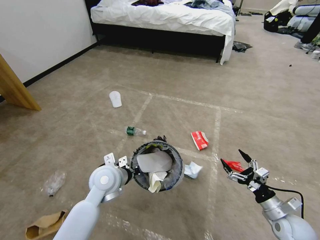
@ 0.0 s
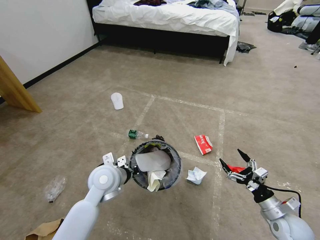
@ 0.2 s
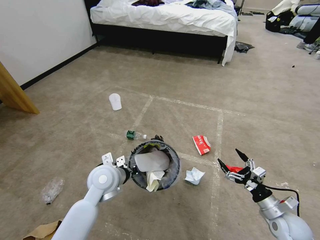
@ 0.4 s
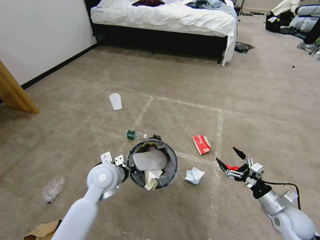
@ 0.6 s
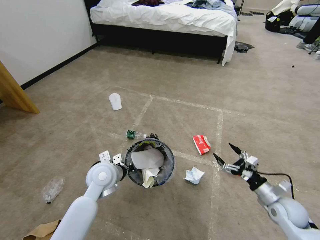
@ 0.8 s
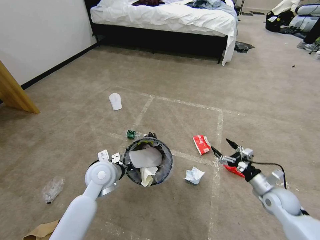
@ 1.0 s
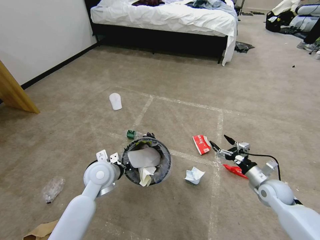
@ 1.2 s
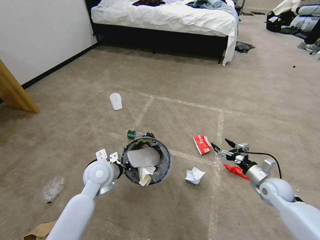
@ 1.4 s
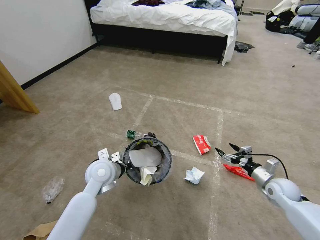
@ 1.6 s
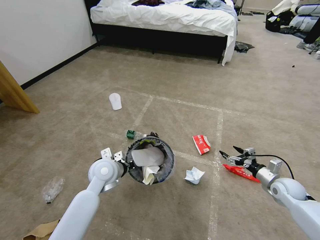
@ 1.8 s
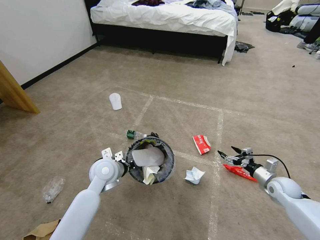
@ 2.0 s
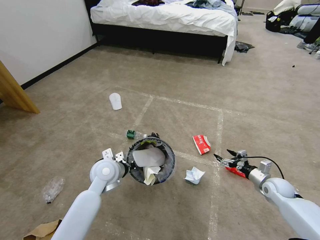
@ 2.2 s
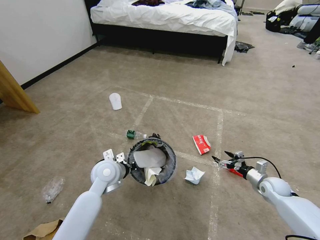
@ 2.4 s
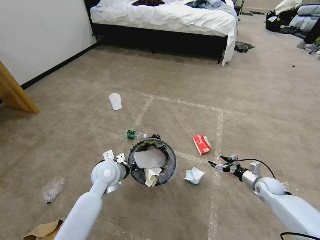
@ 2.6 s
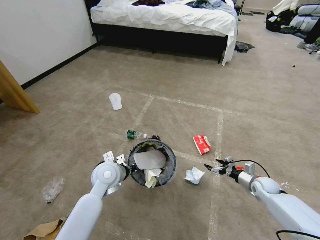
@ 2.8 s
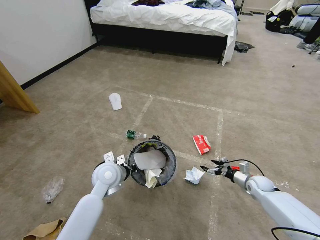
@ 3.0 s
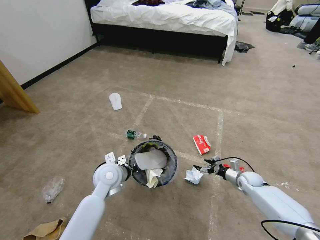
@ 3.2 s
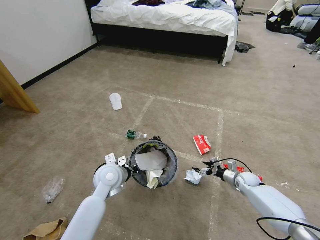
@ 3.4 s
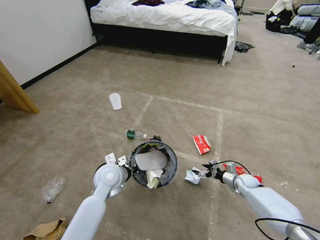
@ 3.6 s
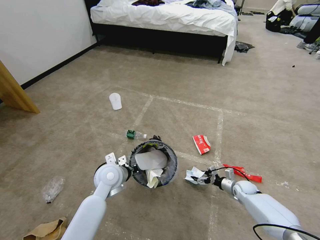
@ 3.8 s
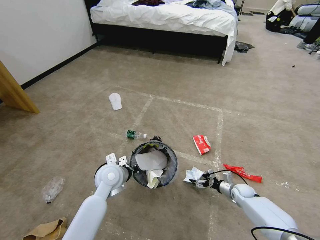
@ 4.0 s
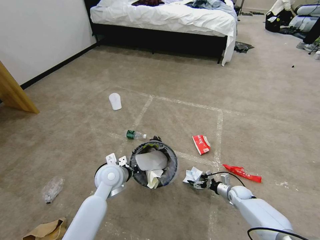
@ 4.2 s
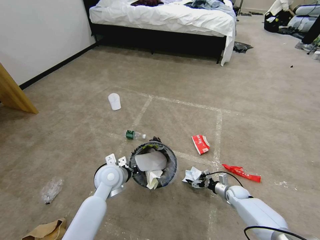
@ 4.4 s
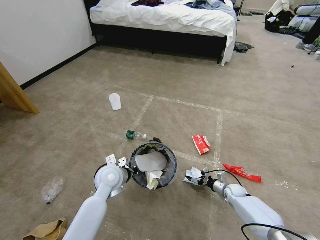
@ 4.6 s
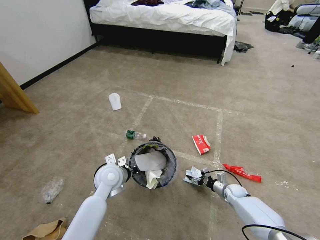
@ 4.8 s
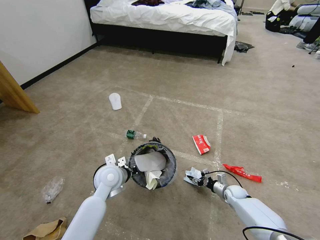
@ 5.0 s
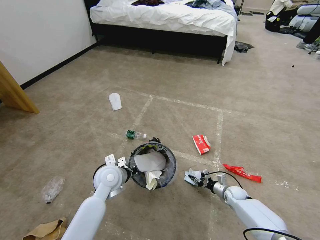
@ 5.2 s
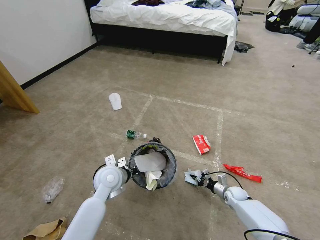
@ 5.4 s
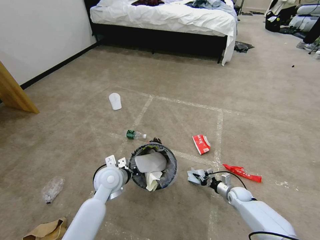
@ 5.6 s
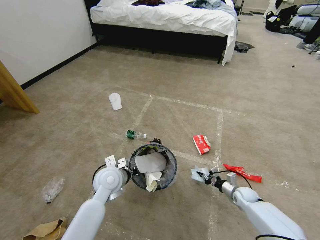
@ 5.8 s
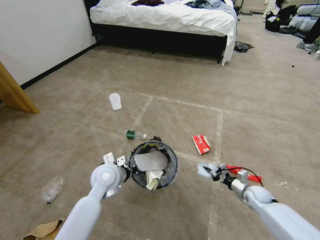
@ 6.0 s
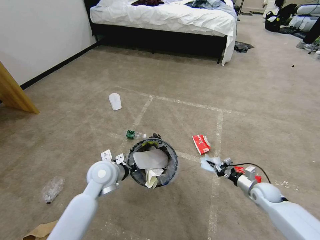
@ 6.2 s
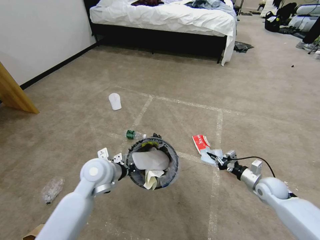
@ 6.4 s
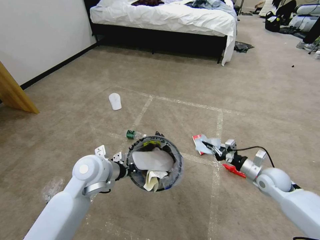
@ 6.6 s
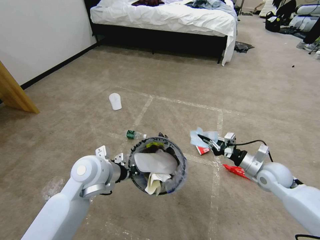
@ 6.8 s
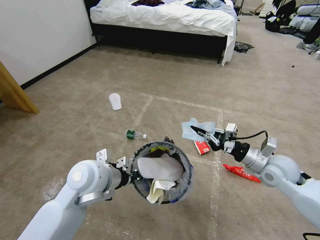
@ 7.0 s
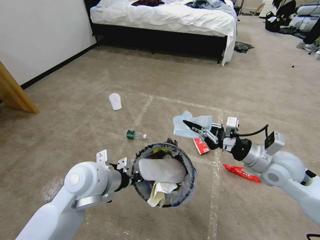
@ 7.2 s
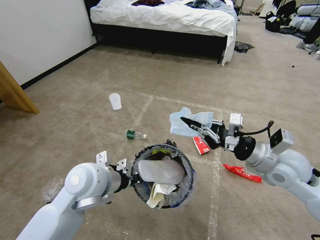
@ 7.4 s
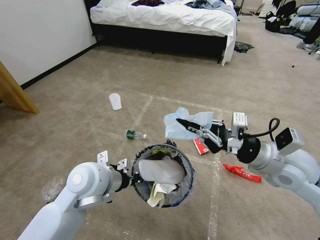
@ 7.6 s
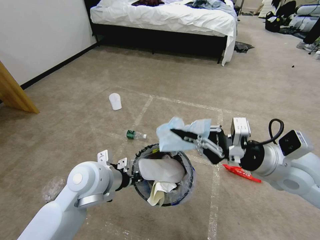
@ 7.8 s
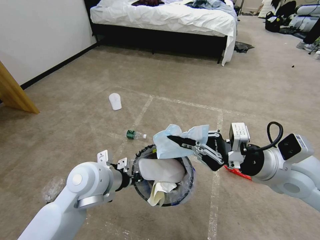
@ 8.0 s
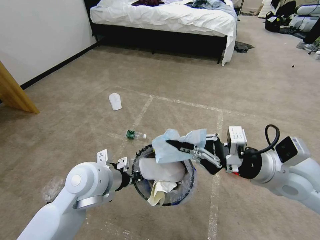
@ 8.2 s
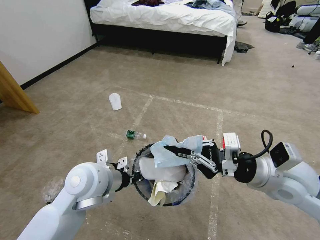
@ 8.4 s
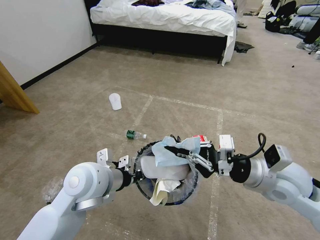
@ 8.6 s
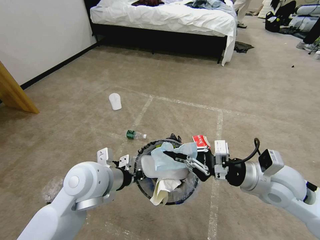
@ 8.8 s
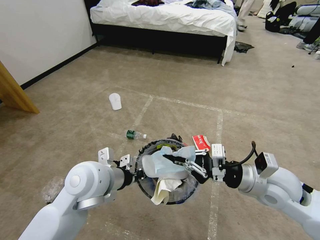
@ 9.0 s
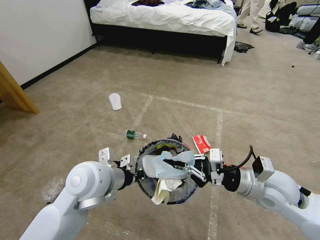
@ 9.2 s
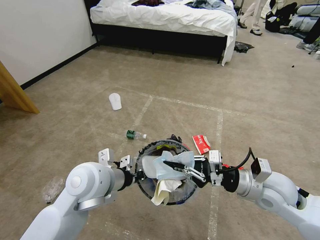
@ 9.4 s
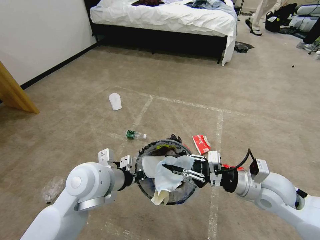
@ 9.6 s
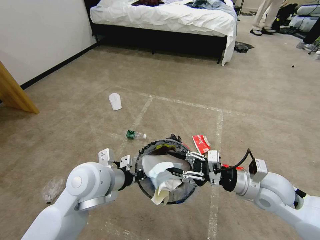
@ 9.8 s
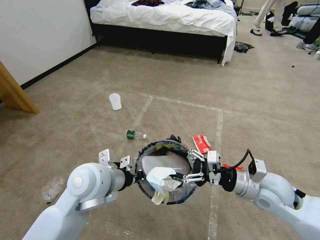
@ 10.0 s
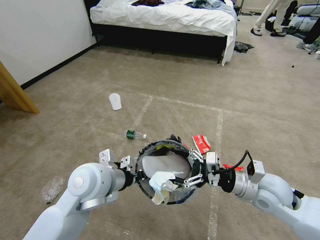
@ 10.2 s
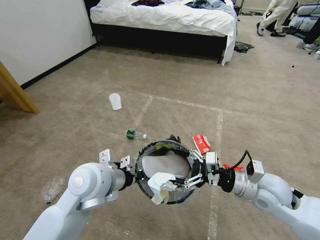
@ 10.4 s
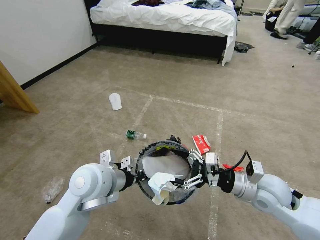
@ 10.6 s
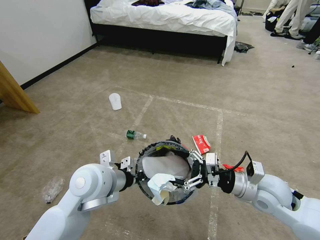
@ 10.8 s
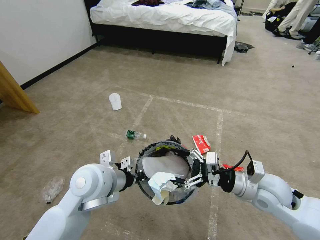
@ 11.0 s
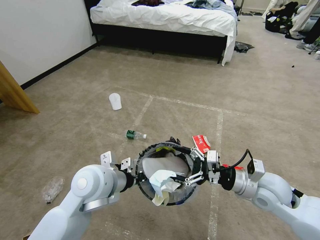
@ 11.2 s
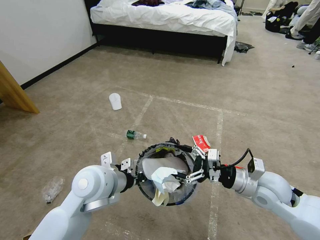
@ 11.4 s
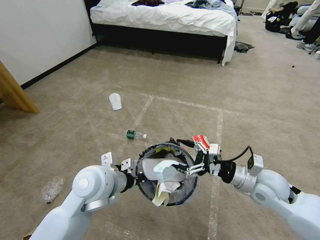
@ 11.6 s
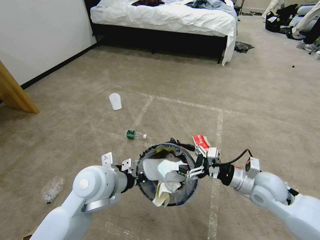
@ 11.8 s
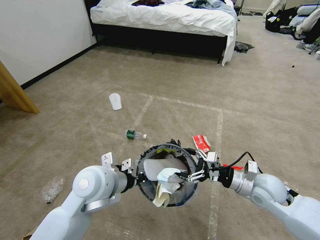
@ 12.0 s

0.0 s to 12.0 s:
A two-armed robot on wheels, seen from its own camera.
Task of the whole recording: Pick up the trash bin and place the garbage on the floor into it.
0.0 to 1.6 s: The right gripper heads forward, covering some 10 cm.
1.6 to 3.0 s: The right gripper heads downward and forward, covering roughly 10 cm.
3.0 to 4.4 s: The right gripper moves downward and to the left, some 10 cm.
4.4 to 6.0 s: The right gripper travels upward by some 5 cm, and closes up.
6.0 to 7.6 s: The right gripper shifts some 35 cm upward. The left gripper heads upward and backward, covering some 10 cm.
7.6 to 9.0 s: The right gripper heads downward, covering approximately 5 cm.
9.0 to 10.4 s: The right gripper opens.
10.4 to 12.0 s: The right gripper ends up approximately 5 cm from where it was.

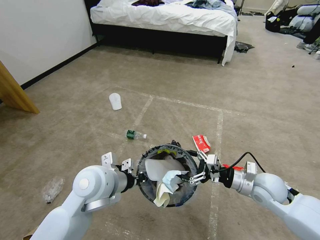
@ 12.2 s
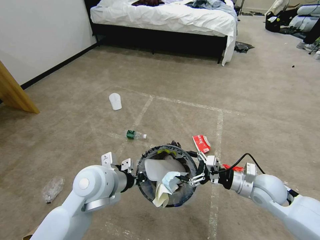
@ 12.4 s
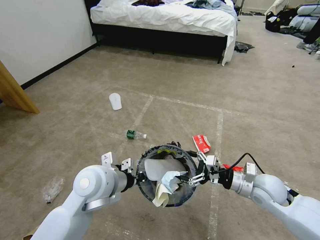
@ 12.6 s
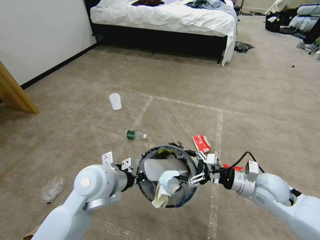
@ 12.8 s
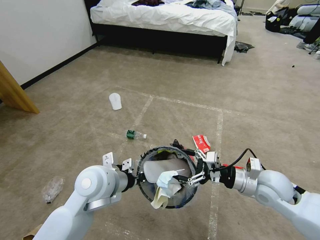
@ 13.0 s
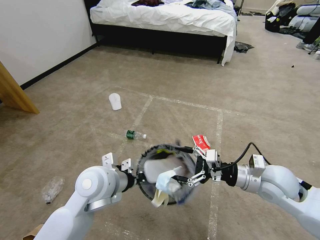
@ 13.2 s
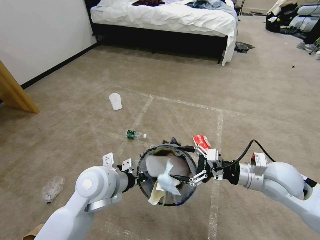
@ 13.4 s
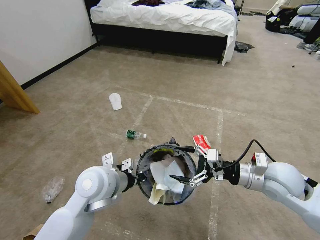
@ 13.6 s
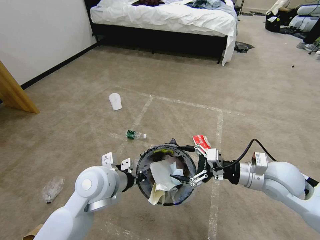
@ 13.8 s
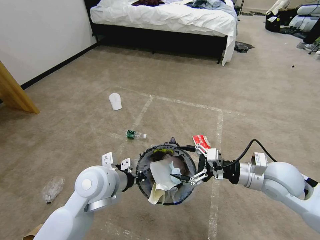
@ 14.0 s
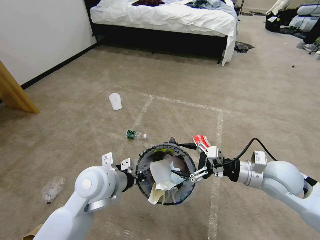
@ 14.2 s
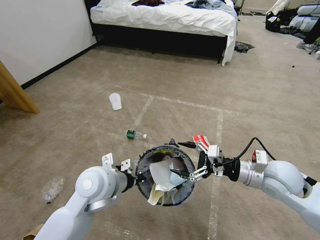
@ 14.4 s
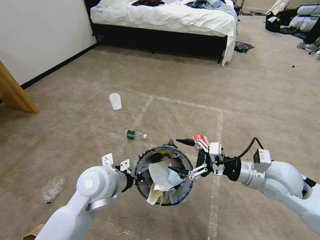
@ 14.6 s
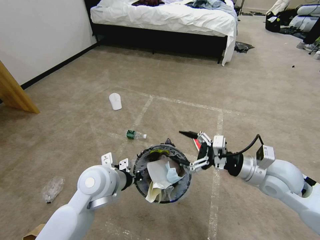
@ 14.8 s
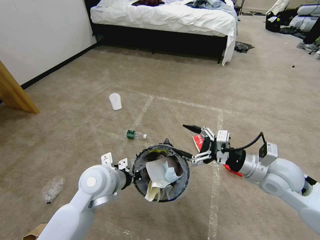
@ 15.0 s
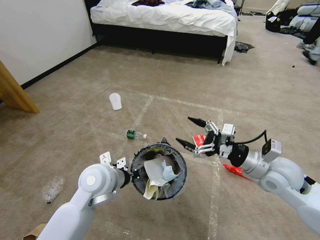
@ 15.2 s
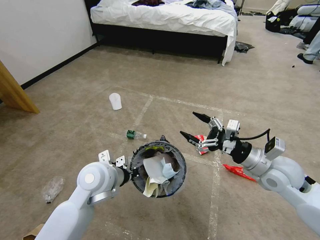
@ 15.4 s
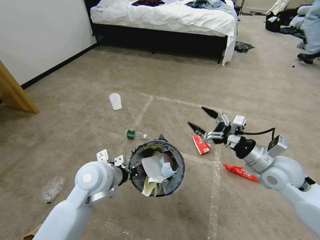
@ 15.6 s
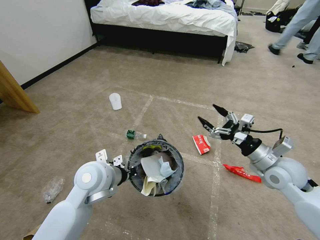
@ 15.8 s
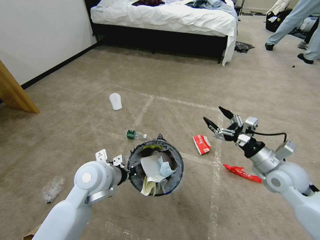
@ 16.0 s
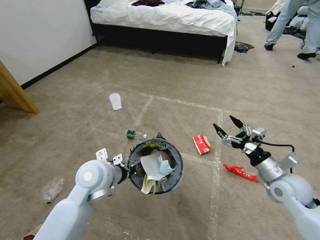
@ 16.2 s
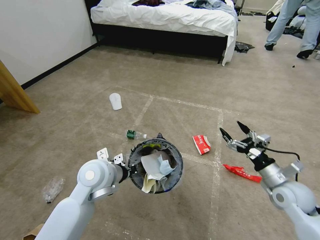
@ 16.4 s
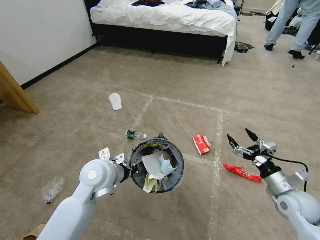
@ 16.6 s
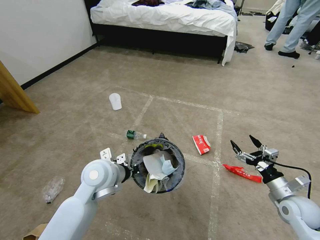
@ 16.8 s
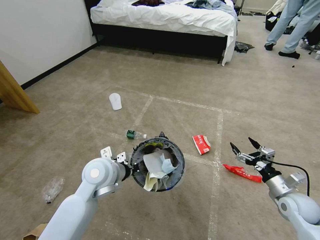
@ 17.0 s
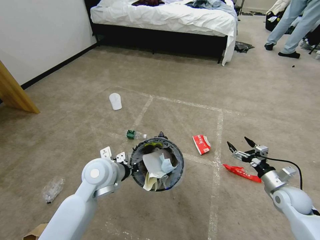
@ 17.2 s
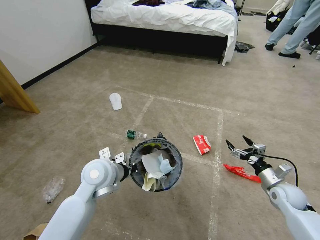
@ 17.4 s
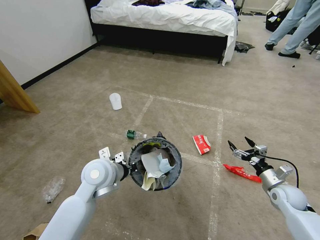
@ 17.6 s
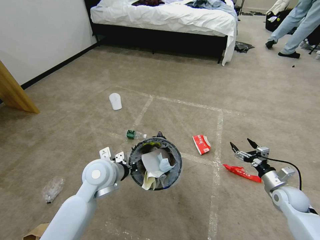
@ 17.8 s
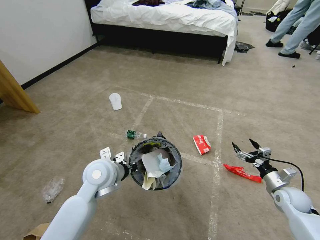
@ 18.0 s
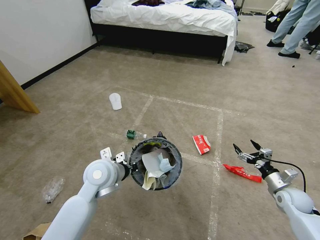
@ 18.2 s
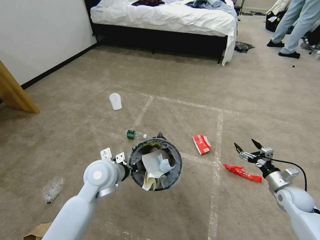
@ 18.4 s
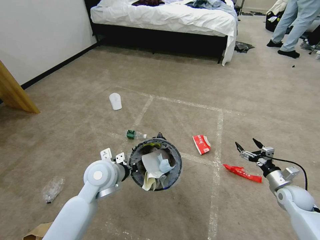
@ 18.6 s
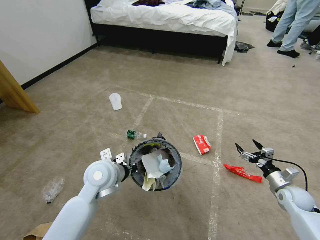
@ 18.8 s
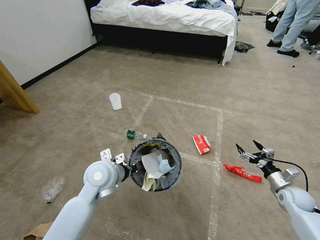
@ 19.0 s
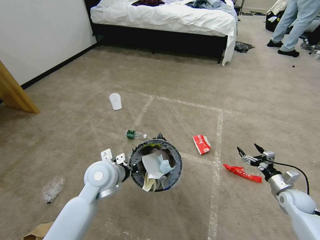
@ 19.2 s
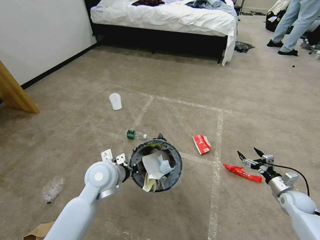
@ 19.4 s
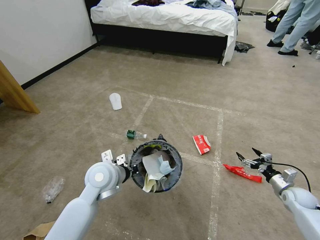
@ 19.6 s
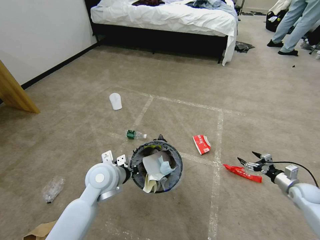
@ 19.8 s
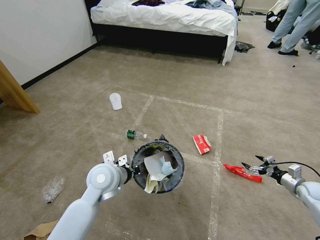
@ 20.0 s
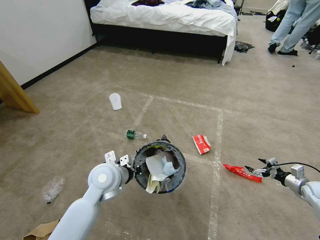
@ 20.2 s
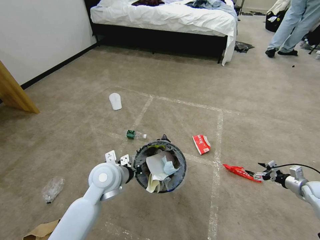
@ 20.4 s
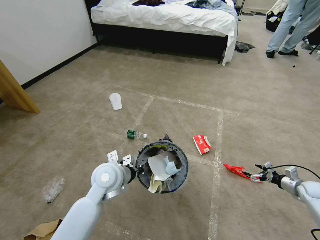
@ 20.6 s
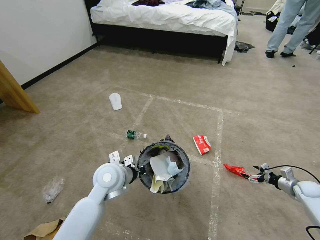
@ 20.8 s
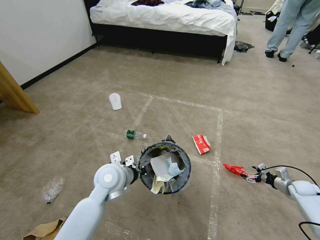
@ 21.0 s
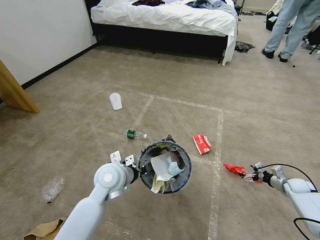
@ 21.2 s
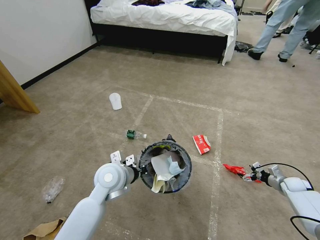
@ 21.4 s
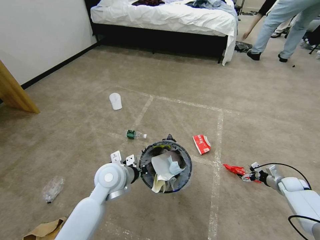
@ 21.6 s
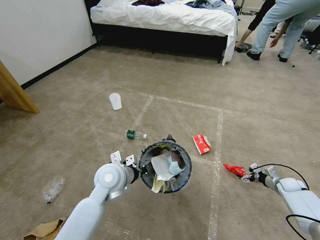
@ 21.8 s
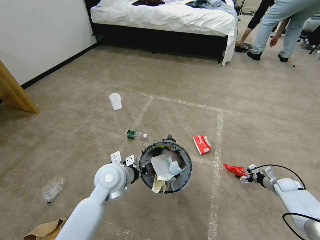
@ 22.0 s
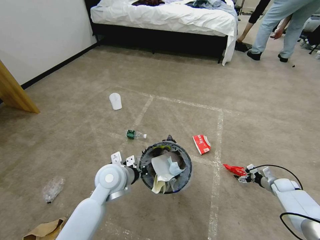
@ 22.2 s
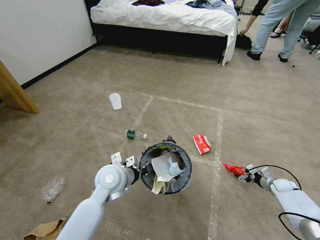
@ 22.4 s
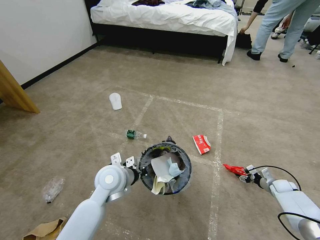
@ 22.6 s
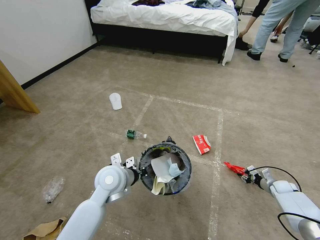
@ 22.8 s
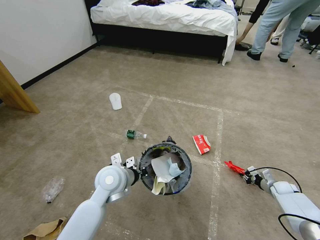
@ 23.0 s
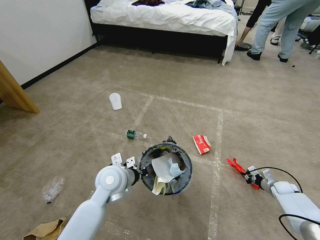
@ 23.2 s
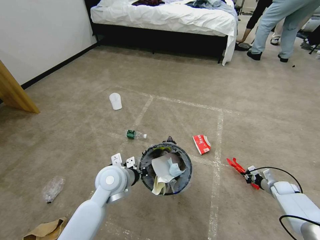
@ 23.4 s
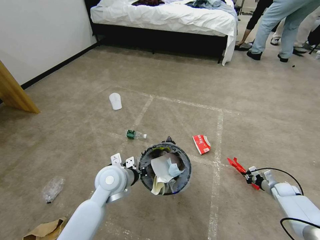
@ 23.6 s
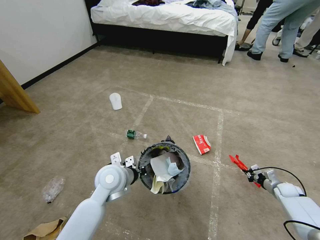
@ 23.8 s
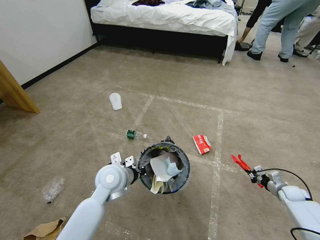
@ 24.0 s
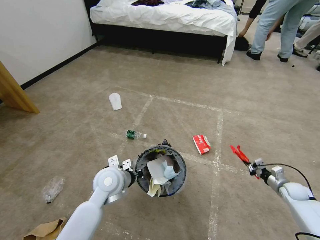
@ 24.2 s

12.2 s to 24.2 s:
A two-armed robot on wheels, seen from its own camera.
Task of the whole recording: Pick up the trash bin and place the garbage on the floor into it.
12.2 to 13.8 s: The right gripper heads upward, covering roughly 10 cm.
15.2 to 16.6 s: The right gripper is displaced downward and to the right by approximately 15 cm.
16.6 to 18.2 s: The right gripper is displaced downward and to the right by approximately 10 cm.
18.2 to 19.8 s: The right gripper heads to the right, covering roughly 5 cm.
19.8 to 21.2 s: The right gripper moves roughly 5 cm.
21.2 to 22.6 s: The right gripper changes place by approximately 5 cm, and closes.
22.6 to 24.2 s: The right gripper moves approximately 5 cm, and closes.
